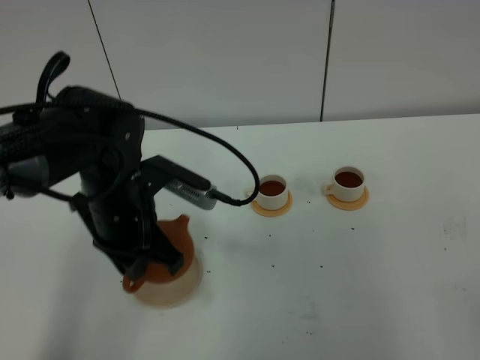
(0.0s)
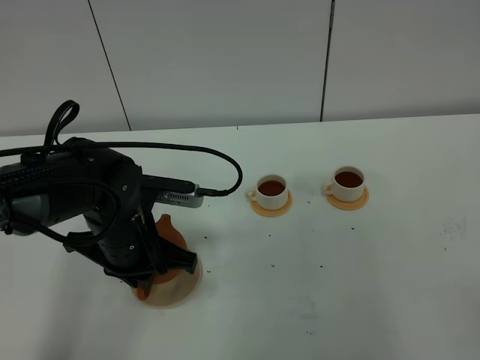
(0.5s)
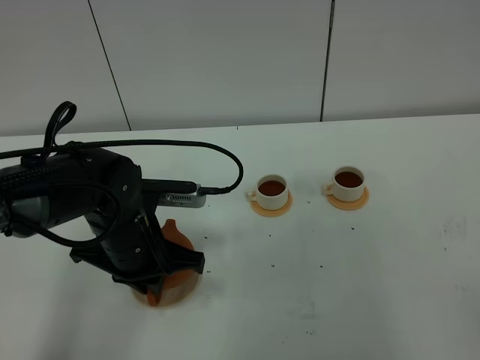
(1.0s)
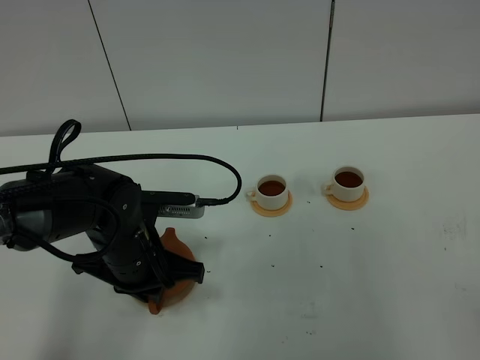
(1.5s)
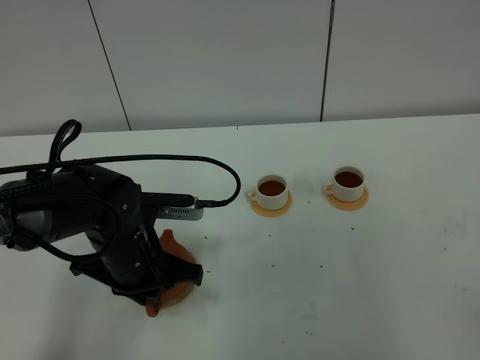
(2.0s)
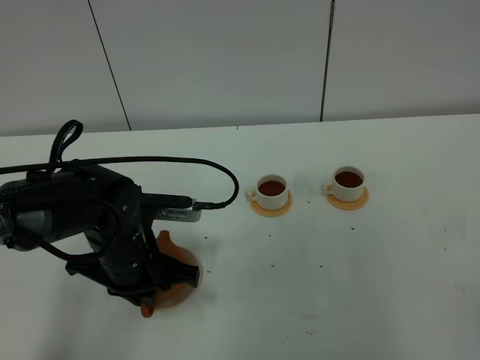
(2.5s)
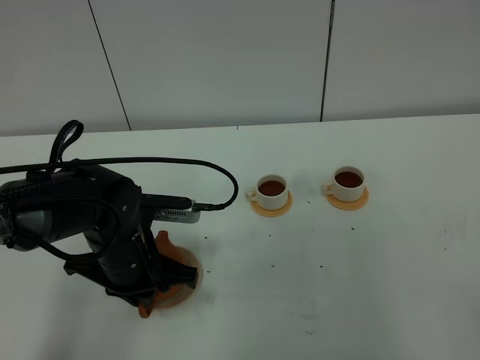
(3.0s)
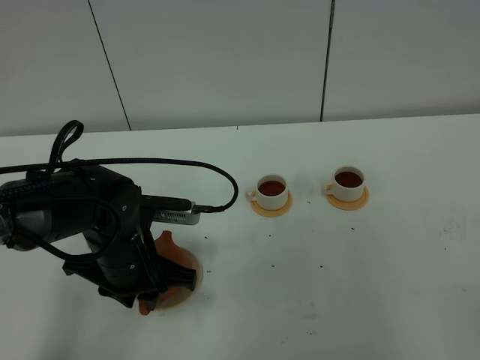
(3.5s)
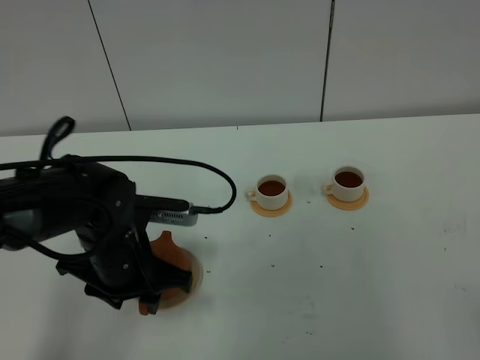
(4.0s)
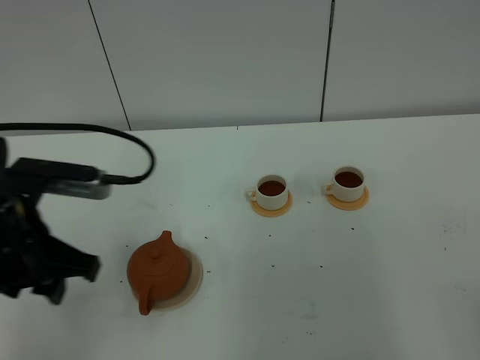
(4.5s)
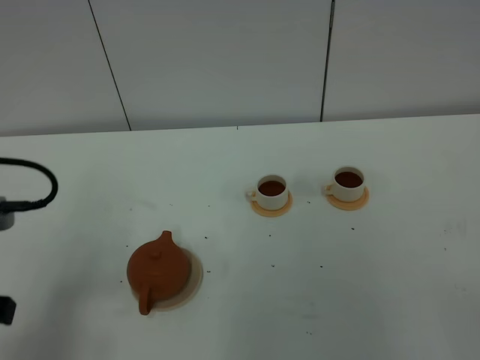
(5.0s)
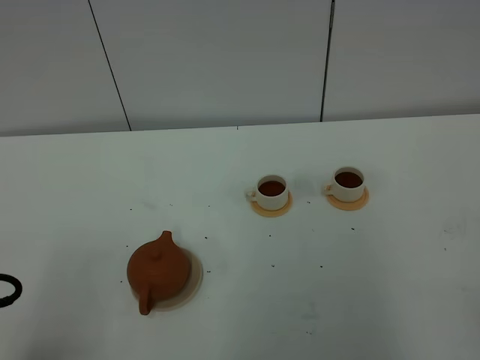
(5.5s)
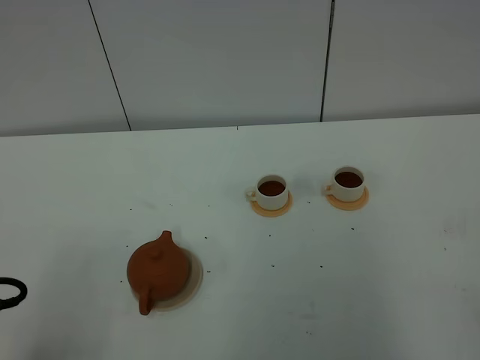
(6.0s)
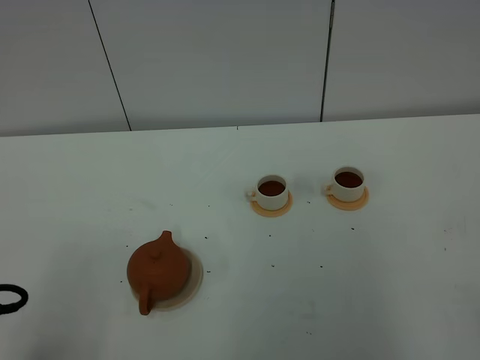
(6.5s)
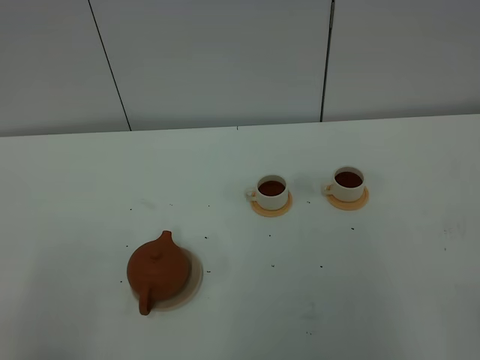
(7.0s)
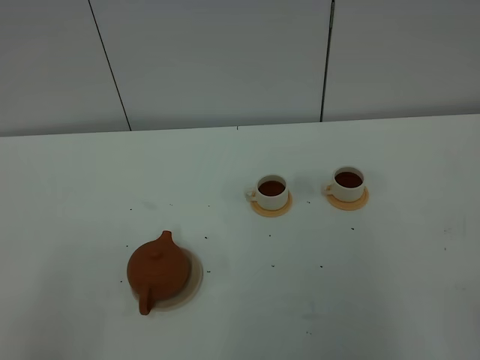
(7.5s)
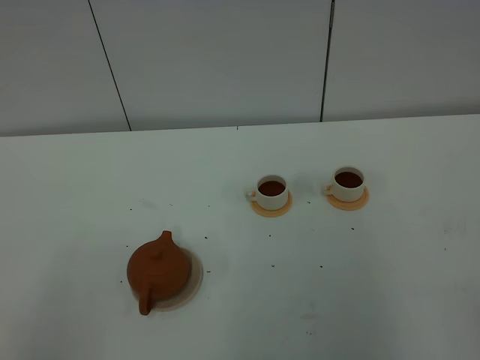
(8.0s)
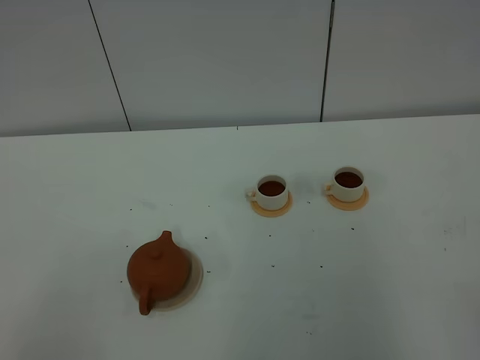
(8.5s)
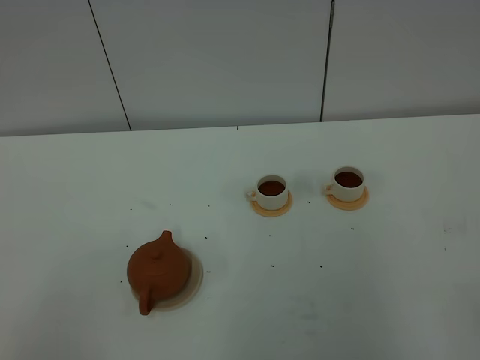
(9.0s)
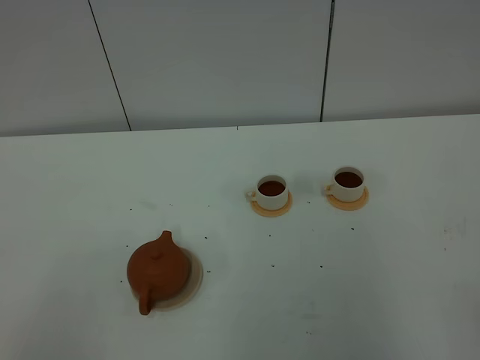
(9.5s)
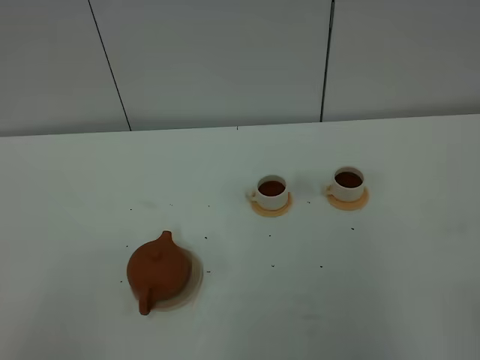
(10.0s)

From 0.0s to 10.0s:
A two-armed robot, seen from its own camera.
Task of the whole recording: grasp the brown teapot and pour the tea into the two white teacups one by one, put the brown teapot back in its original place.
From 0.0s to 2.0s: The left gripper goes approximately 5 cm downward.
From 2.0s to 4.0s: The left gripper opens up.
From 4.0s to 6.0s: The left gripper heads backward and to the left, covering roughly 25 cm.
